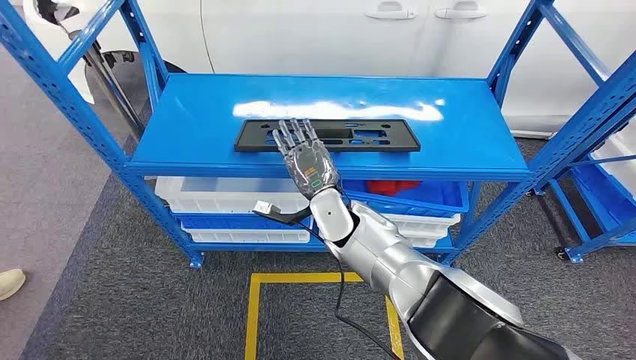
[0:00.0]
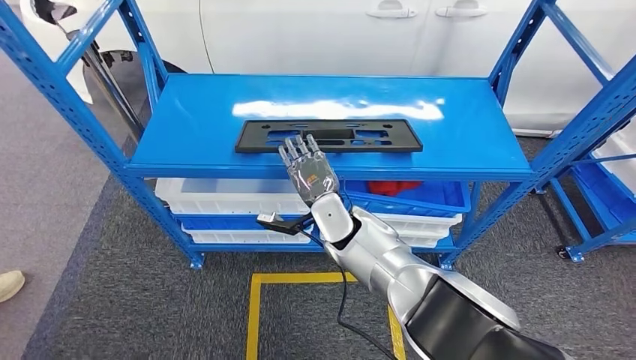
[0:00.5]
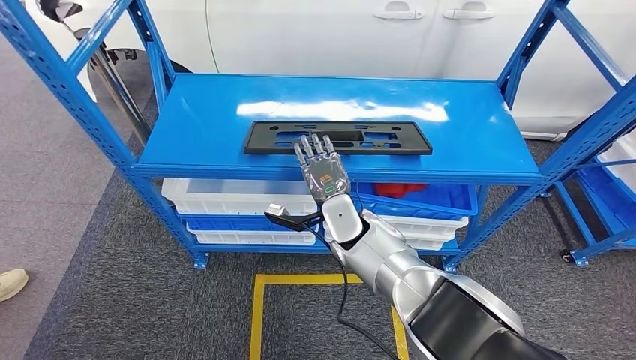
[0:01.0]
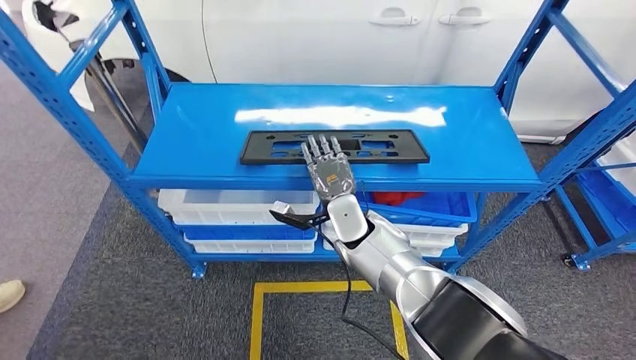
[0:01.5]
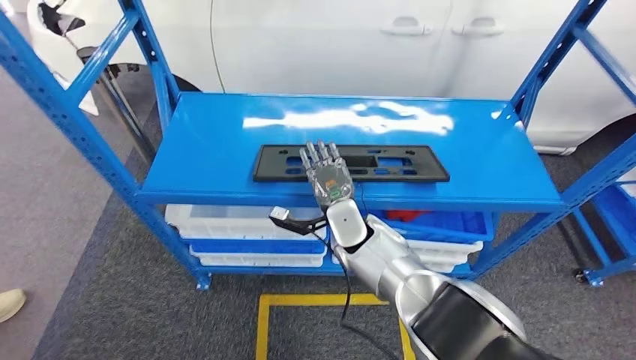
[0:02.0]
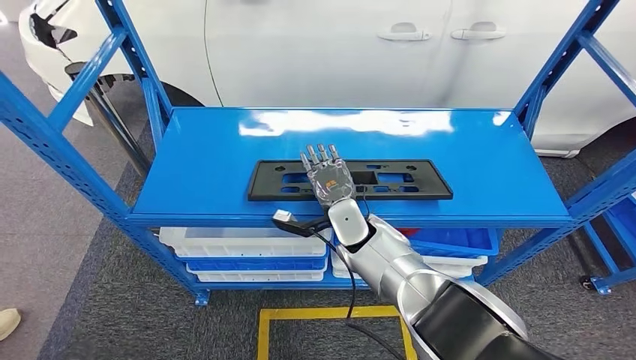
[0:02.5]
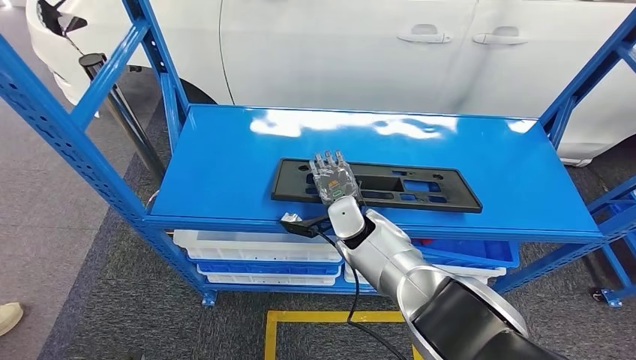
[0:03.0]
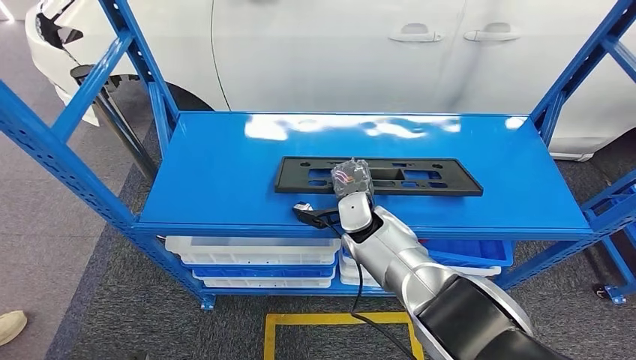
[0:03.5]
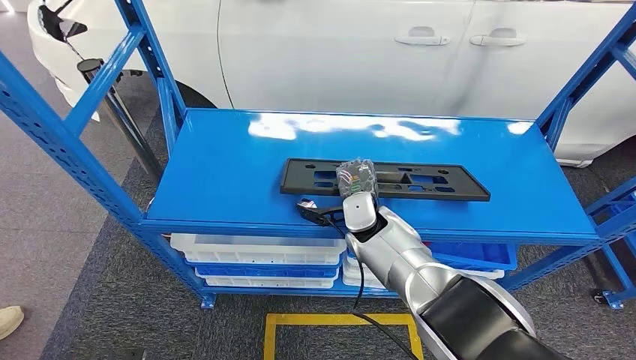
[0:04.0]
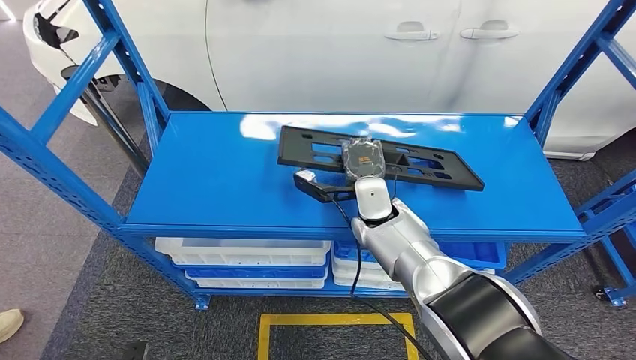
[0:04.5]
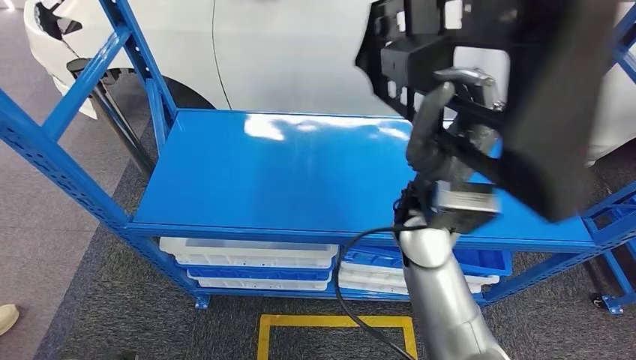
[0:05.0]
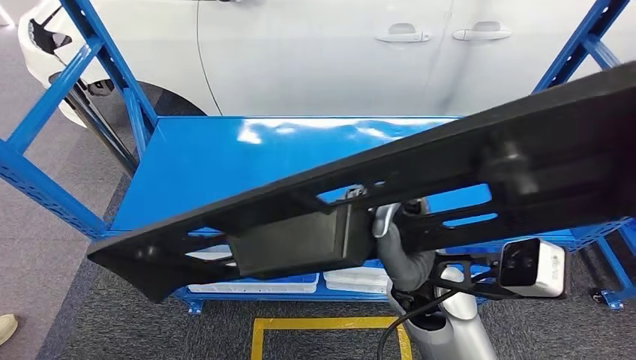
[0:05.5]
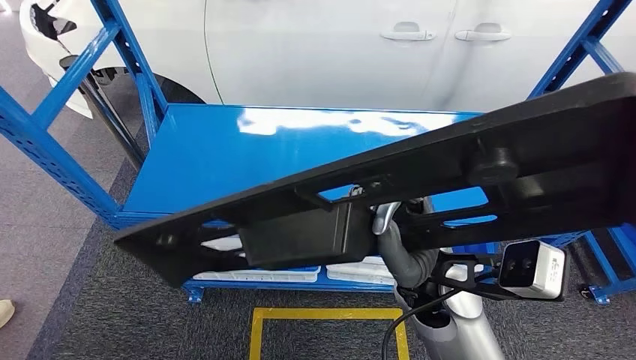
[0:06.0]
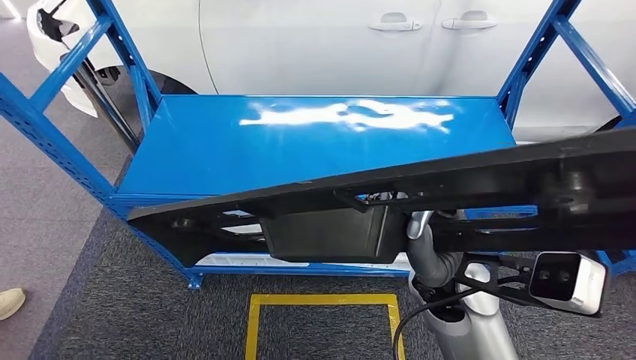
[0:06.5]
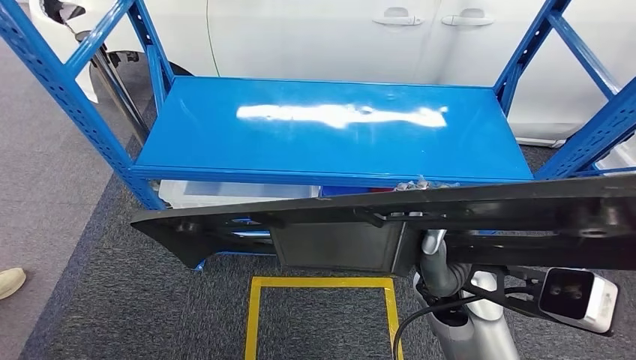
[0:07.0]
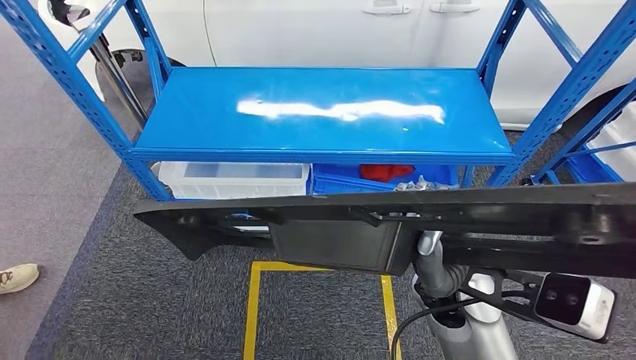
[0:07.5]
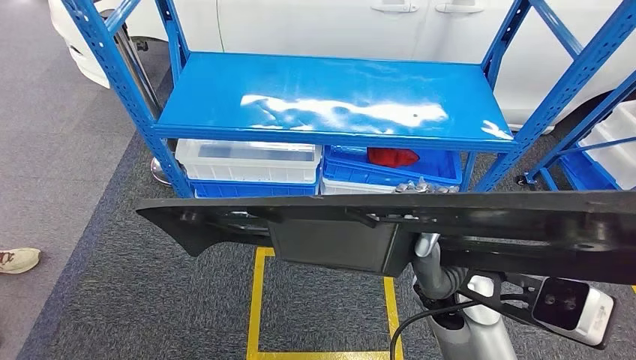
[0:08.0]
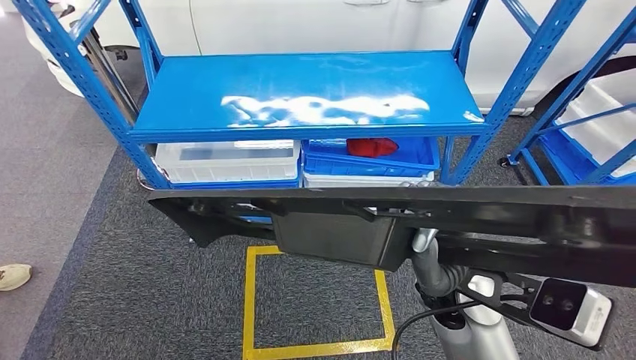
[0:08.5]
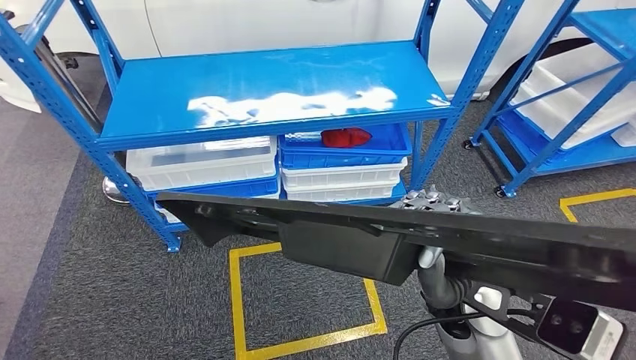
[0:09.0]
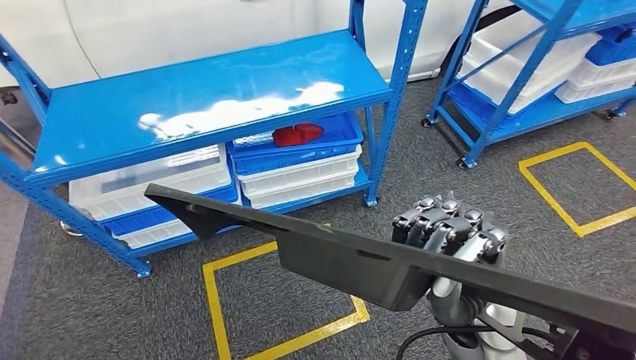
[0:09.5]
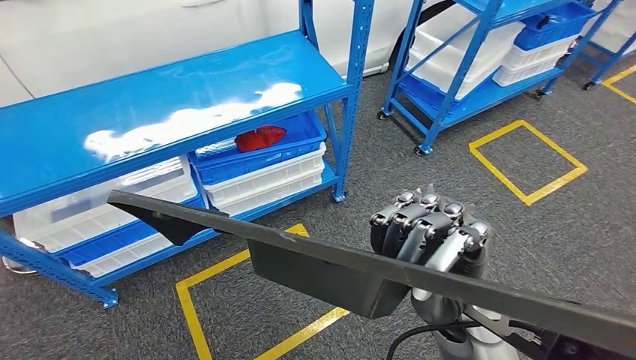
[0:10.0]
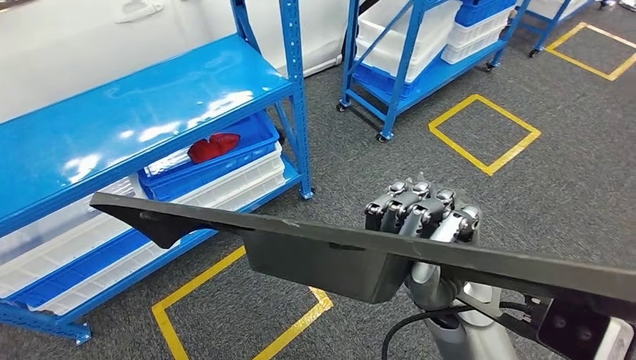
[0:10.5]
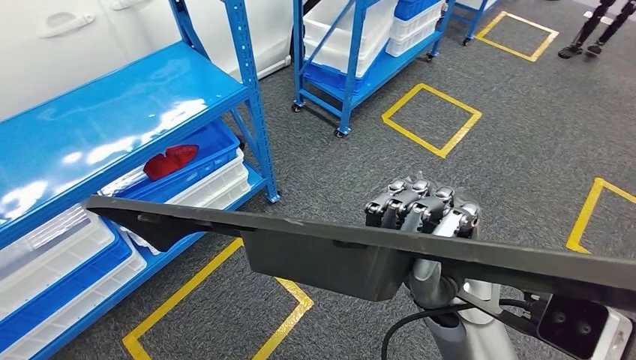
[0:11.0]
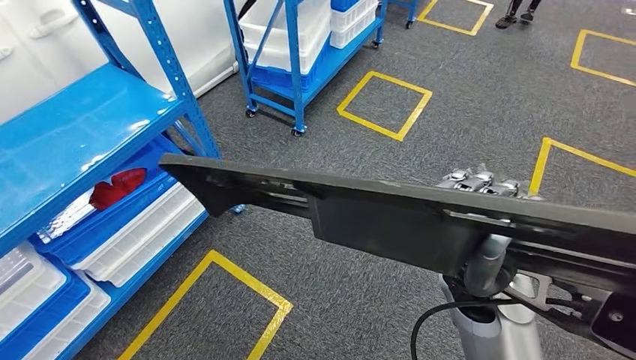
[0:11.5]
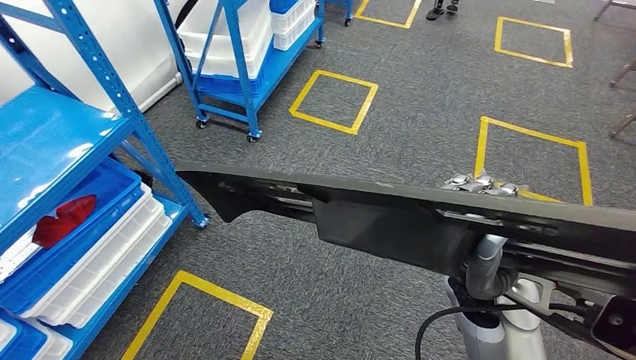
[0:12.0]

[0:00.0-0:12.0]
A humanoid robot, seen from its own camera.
Step, 0:00.0 to 0:06.0: Pick up the large material from the shelf.

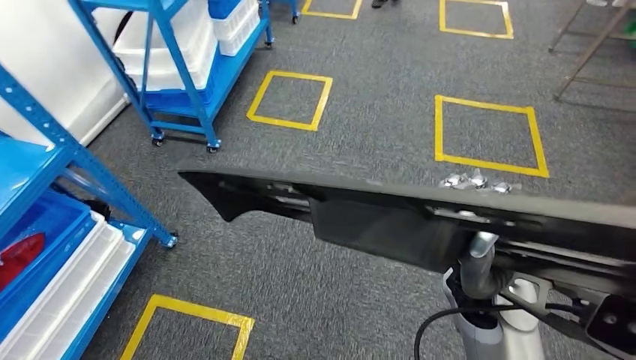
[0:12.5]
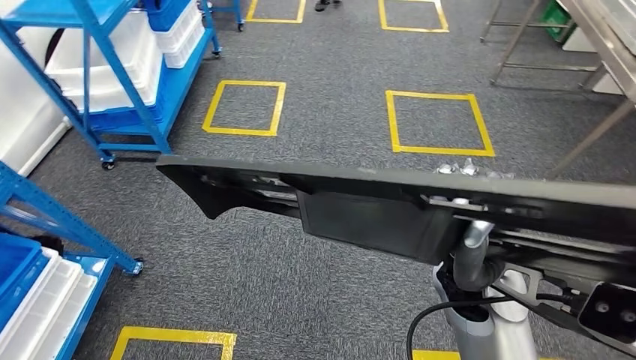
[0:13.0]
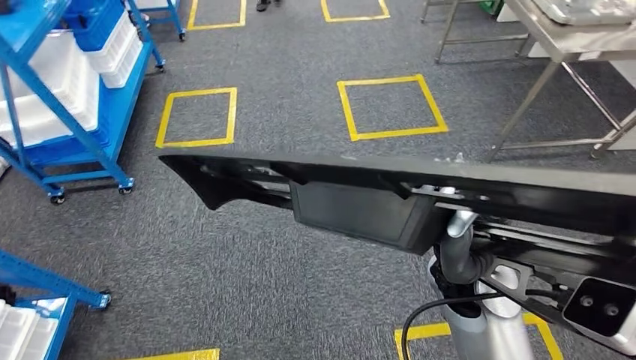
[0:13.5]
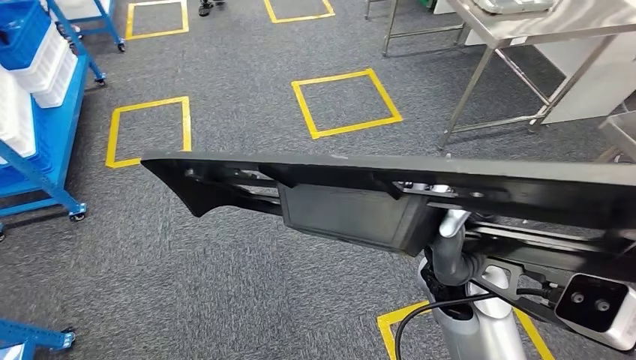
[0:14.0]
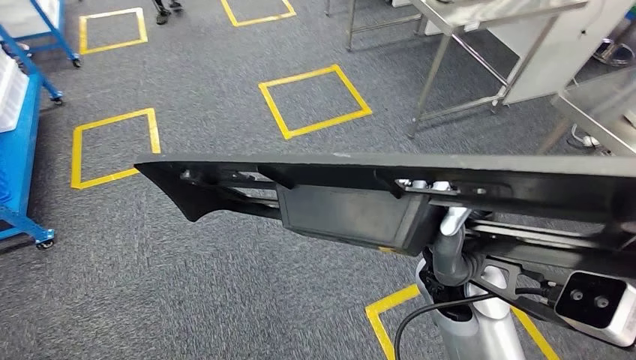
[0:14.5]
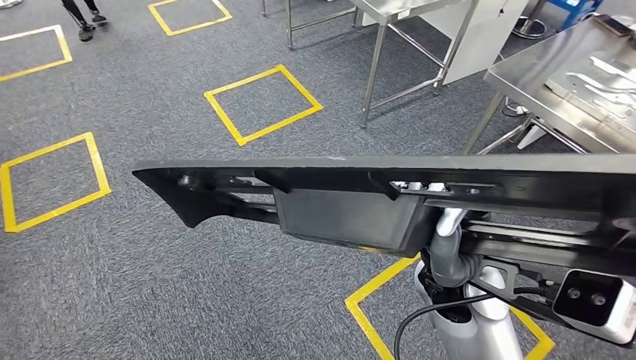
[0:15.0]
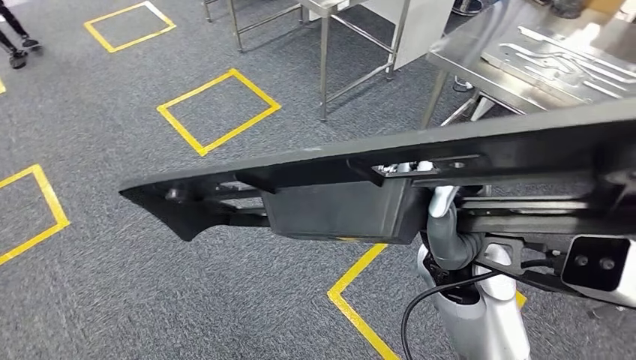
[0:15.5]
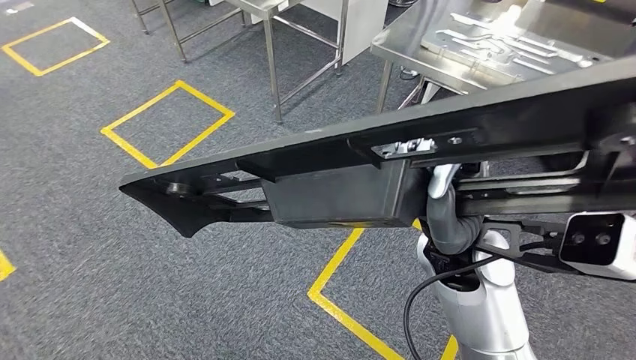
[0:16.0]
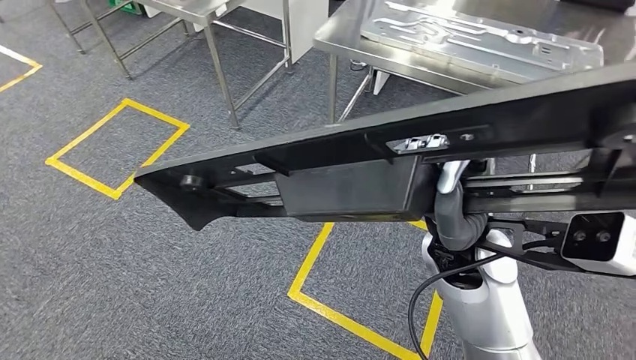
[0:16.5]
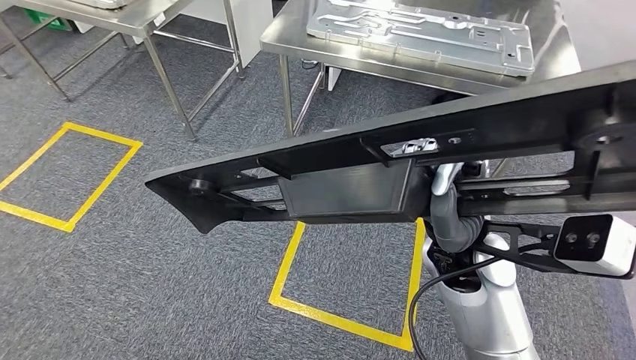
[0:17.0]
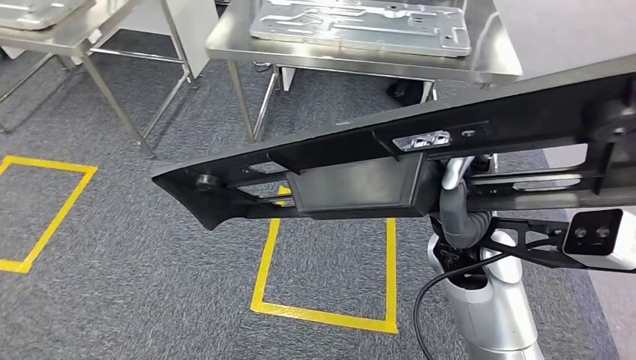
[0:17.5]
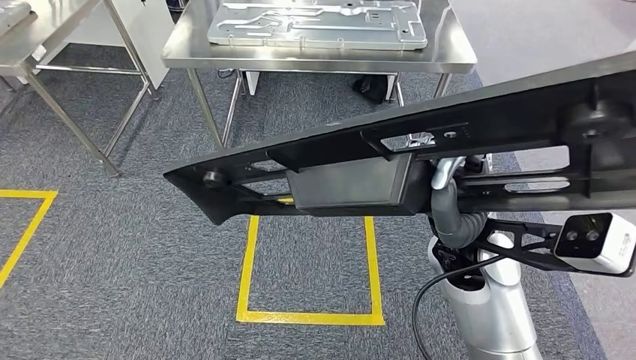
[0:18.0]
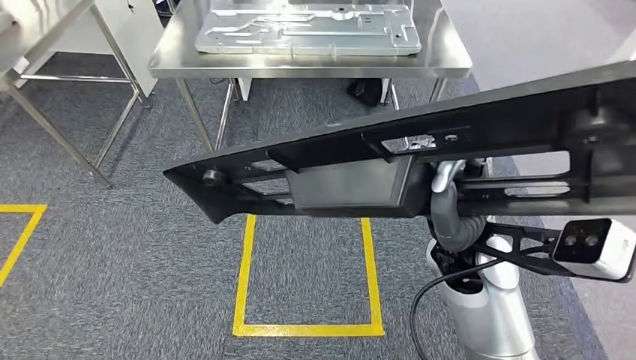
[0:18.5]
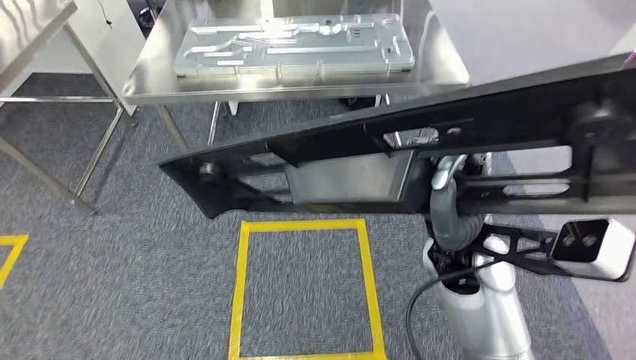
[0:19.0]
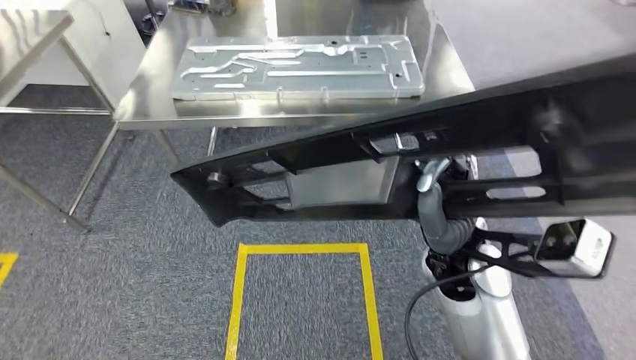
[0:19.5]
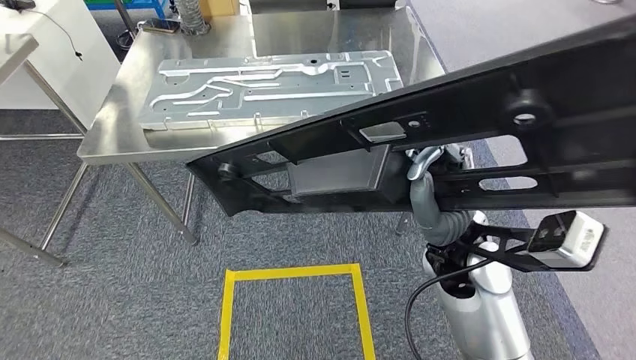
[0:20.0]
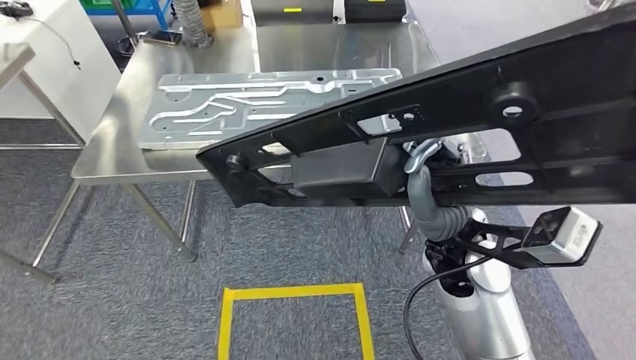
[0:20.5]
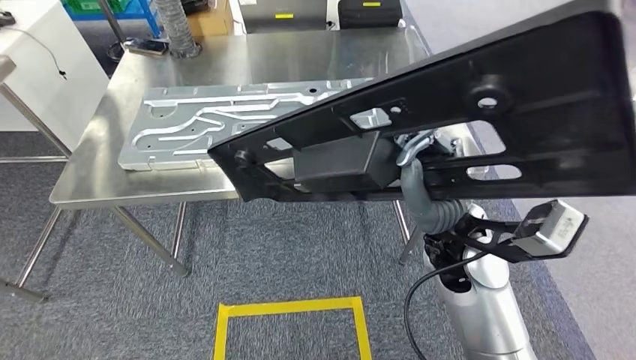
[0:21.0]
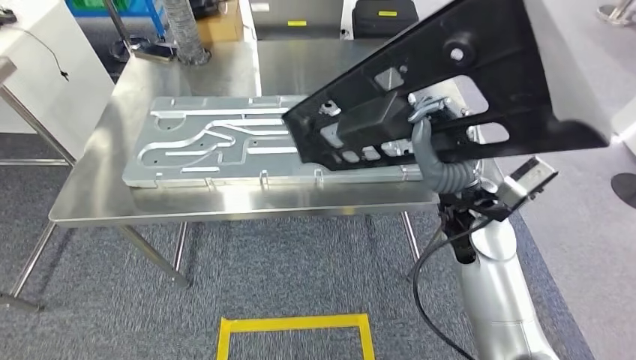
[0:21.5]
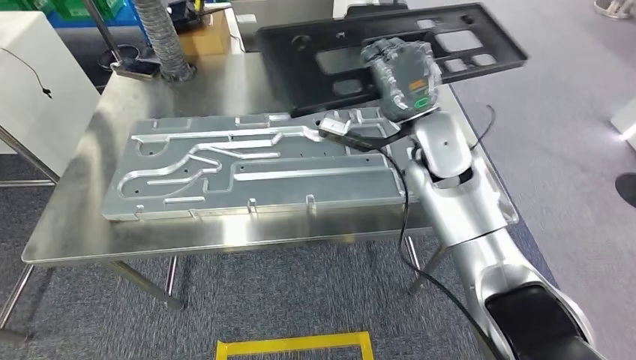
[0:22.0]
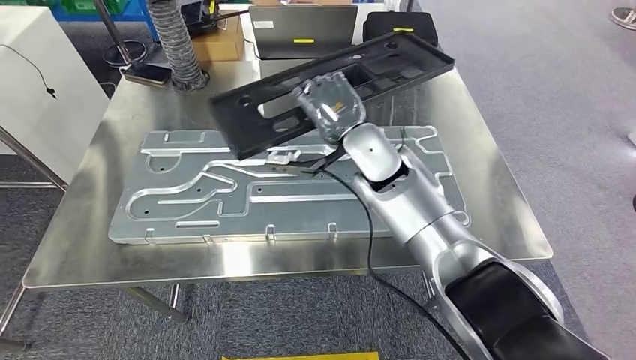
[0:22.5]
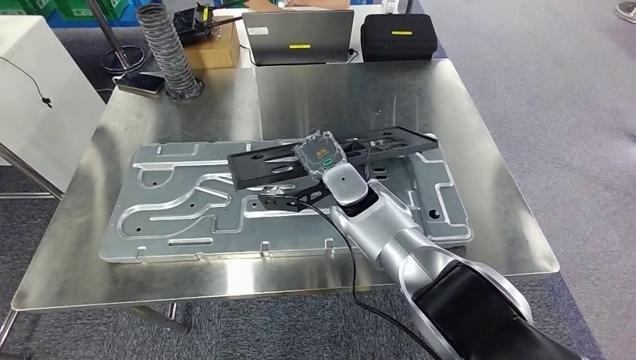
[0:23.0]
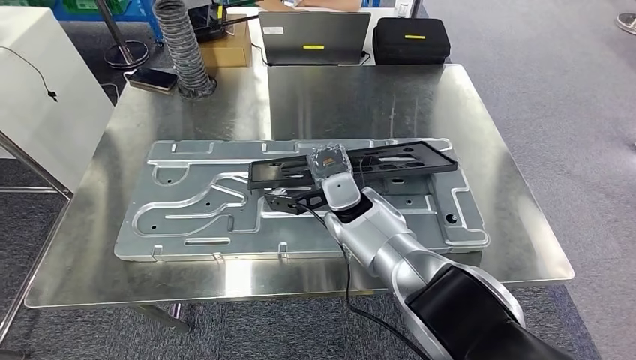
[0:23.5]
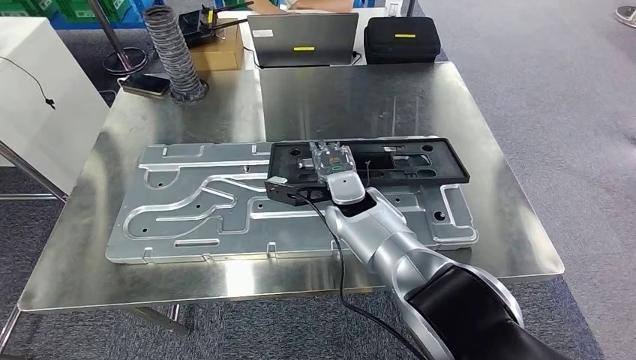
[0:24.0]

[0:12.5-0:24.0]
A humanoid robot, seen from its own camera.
Step, 0:12.5 to 0:22.0: Move the large material to the workbench.
